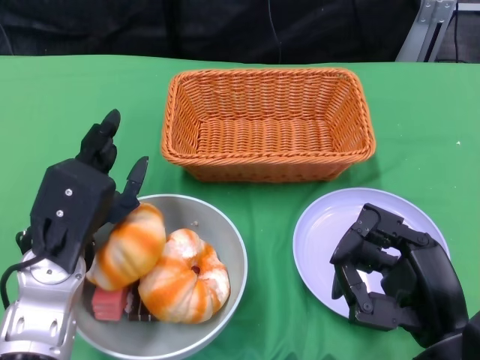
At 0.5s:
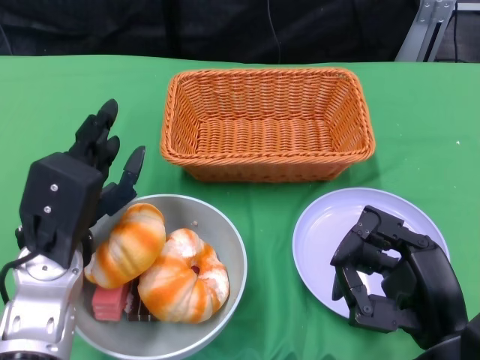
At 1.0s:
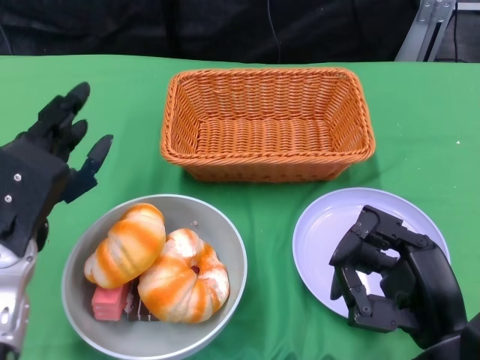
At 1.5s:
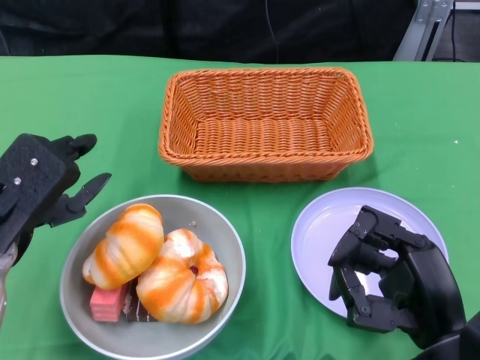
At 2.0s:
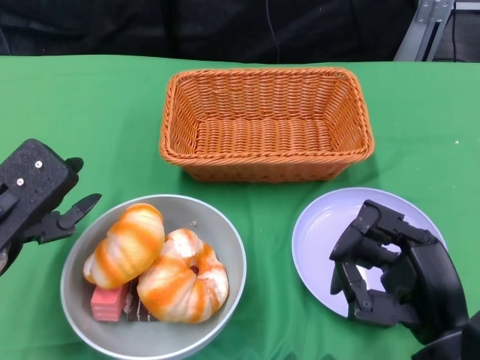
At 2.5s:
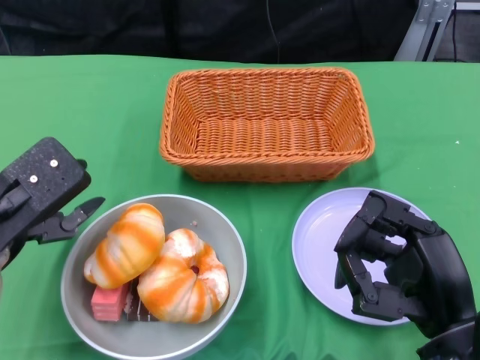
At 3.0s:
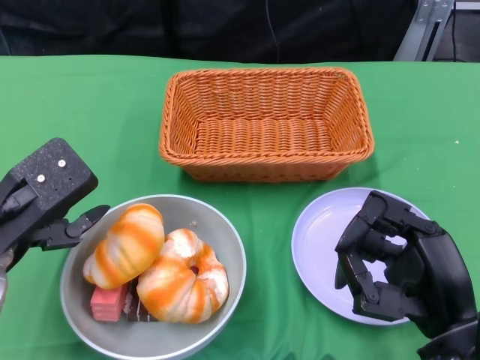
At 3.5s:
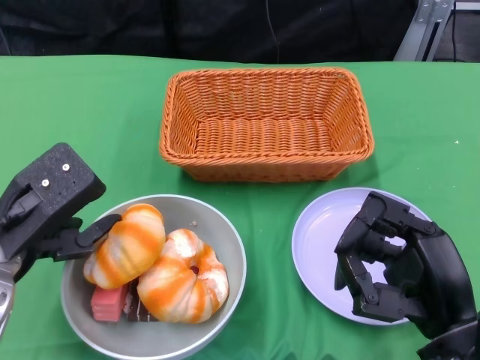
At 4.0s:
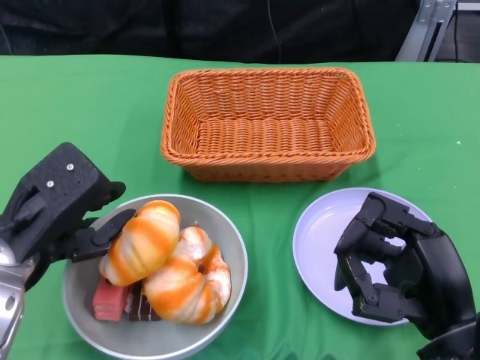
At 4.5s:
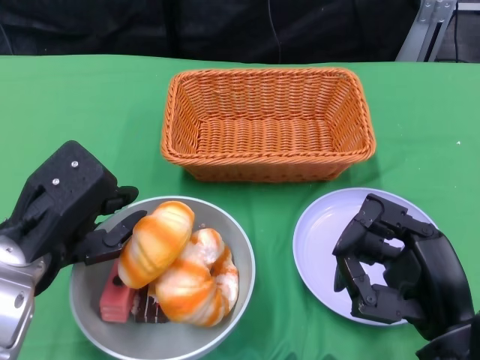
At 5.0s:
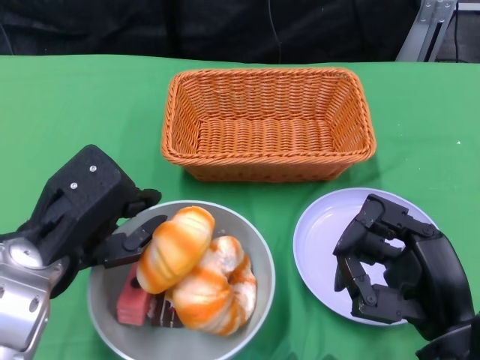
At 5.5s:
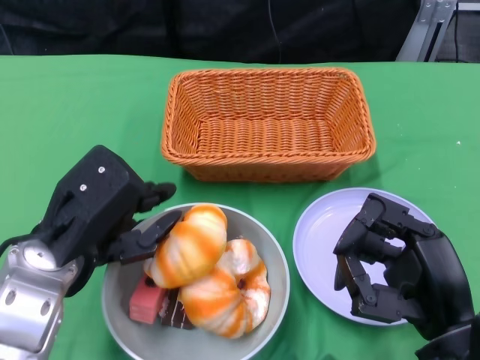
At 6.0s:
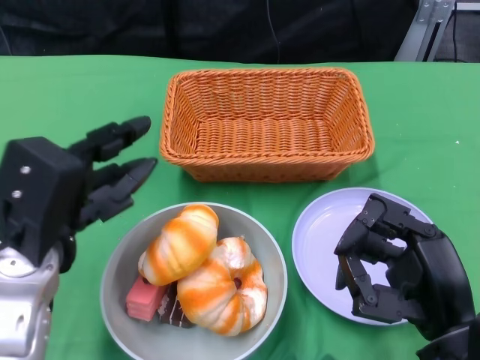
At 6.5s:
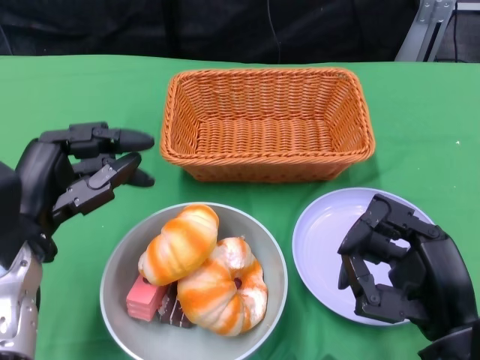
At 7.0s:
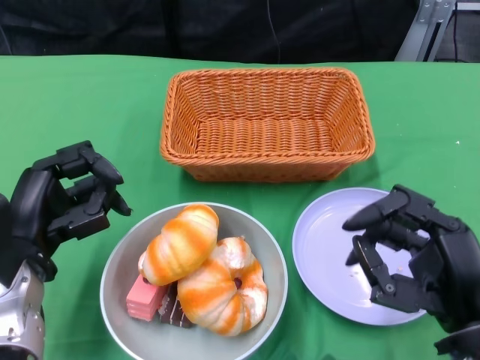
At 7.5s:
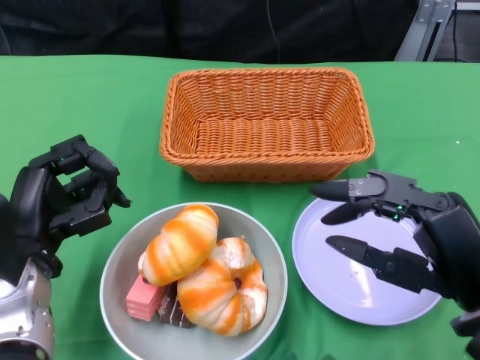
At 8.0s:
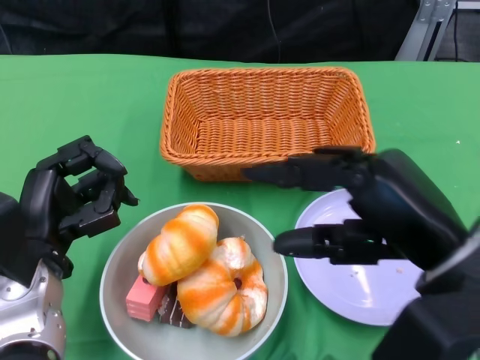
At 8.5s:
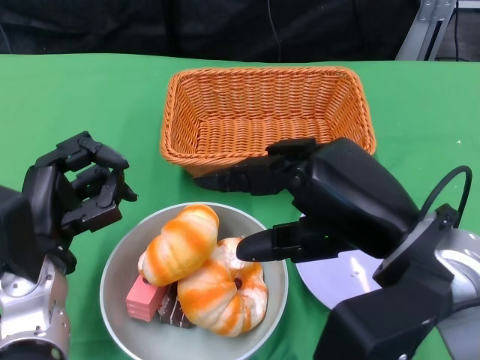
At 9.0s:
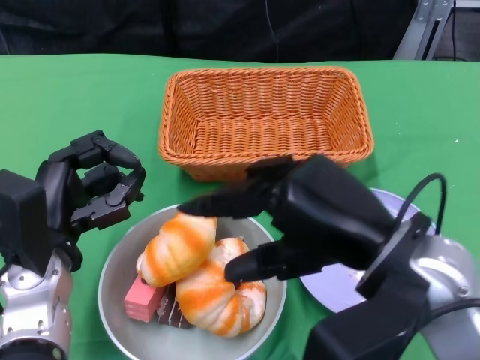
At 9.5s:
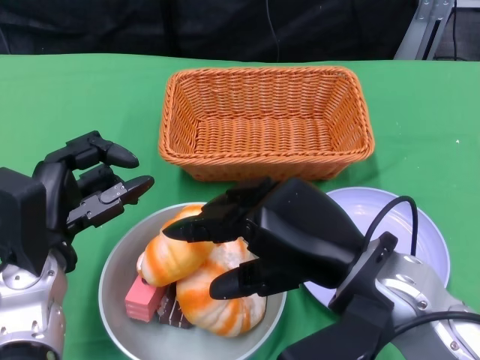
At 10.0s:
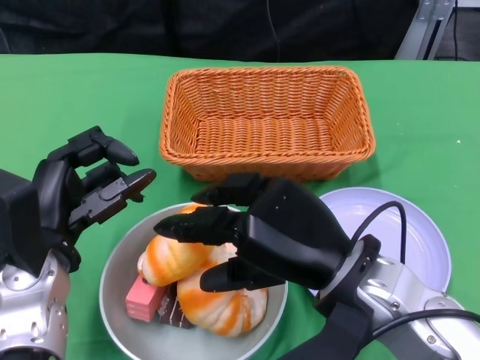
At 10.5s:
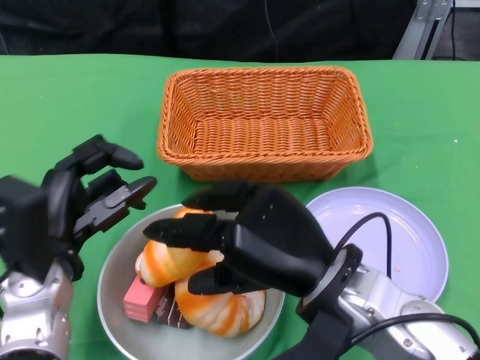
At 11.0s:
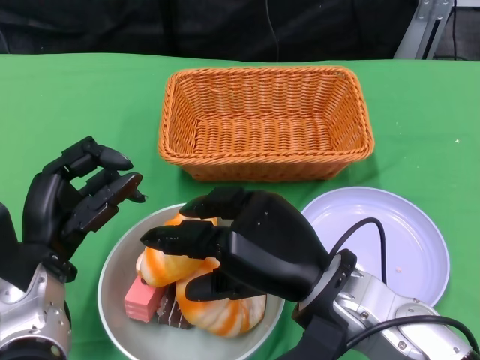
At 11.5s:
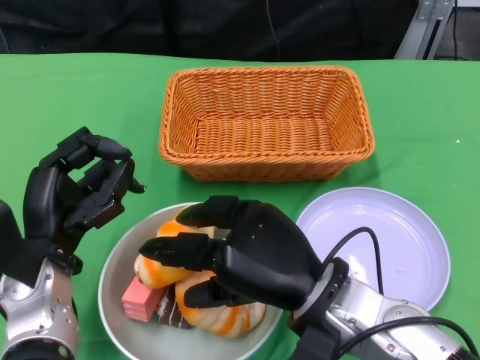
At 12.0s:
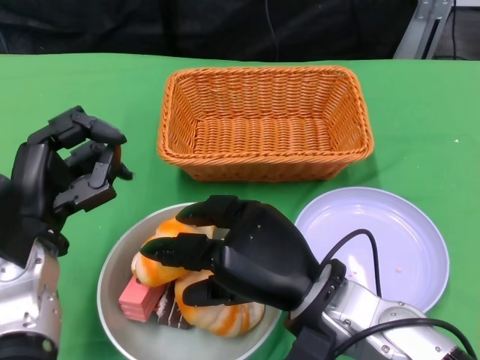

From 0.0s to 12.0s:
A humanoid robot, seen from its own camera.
Step, from 0.0s to 7.0s: Push the bowl to the center of the table using the left gripper.
From 0.0s to 2.0s: The left hand shifts roughly 5 cm to the left.
From 6.0s to 8.0s: The right hand is displaced upward by about 10 cm. The left hand moves downward, about 5 cm.
From 8.0s to 10.0s: The right hand is displaced to the left by some 10 cm.
From 10.0s to 12.0s: The right hand shifts by roughly 5 cm.

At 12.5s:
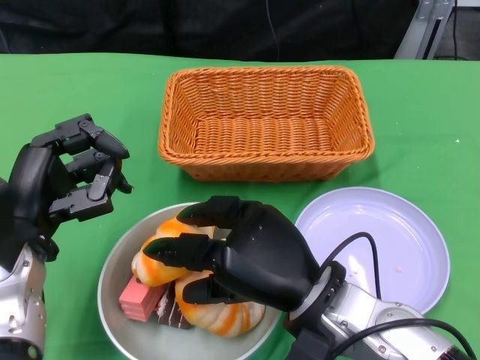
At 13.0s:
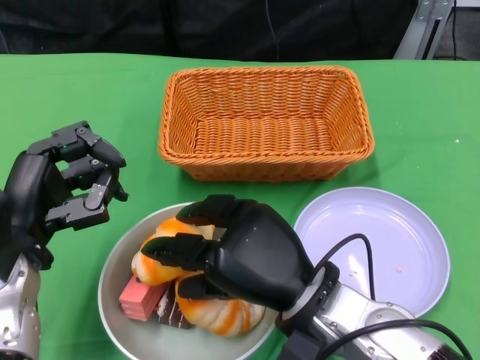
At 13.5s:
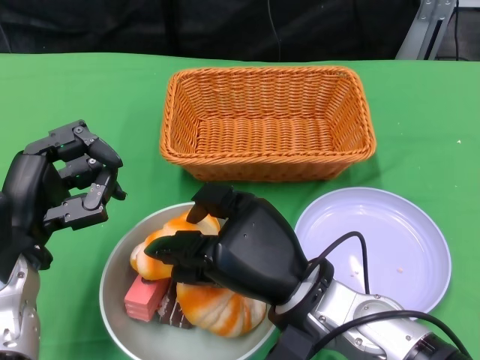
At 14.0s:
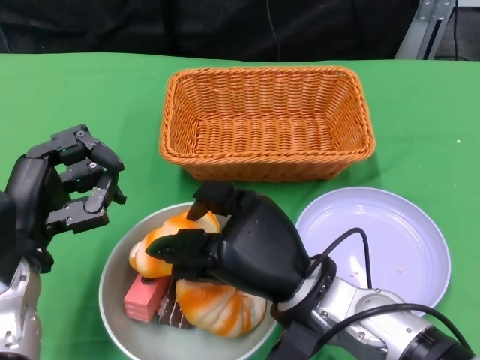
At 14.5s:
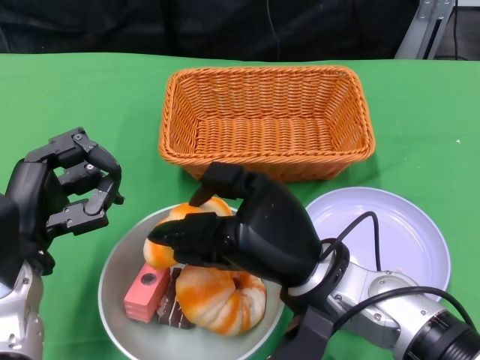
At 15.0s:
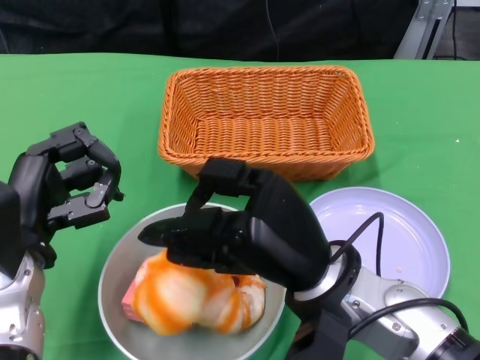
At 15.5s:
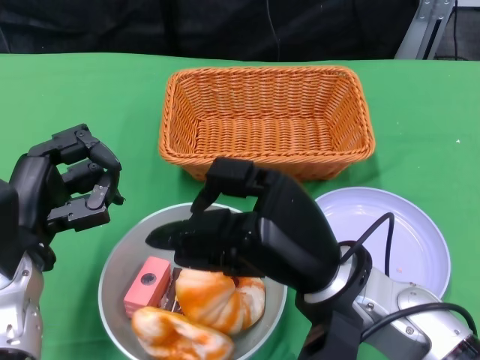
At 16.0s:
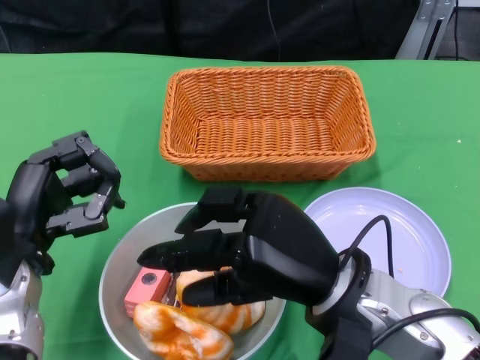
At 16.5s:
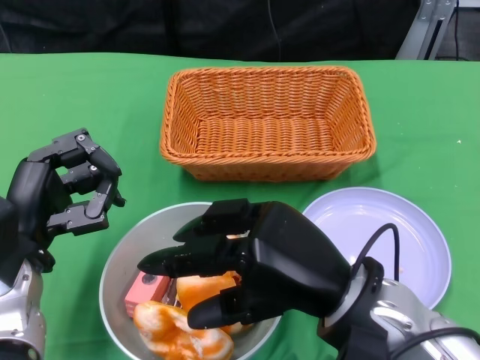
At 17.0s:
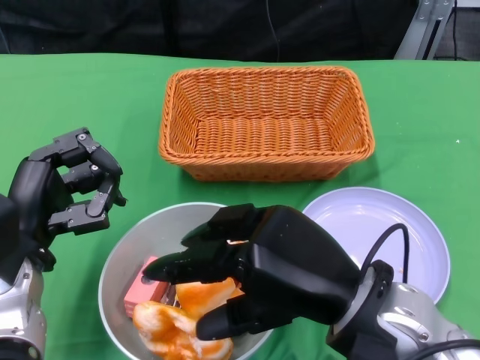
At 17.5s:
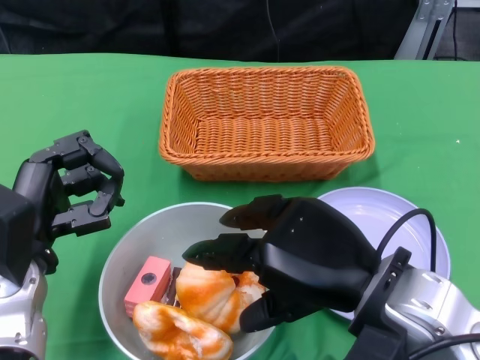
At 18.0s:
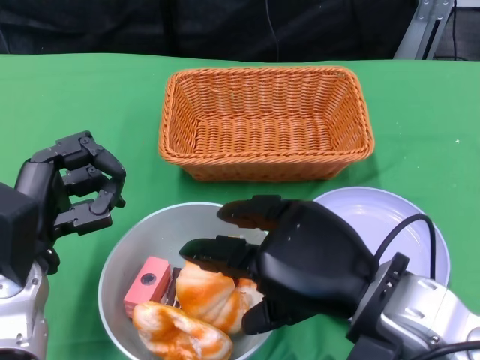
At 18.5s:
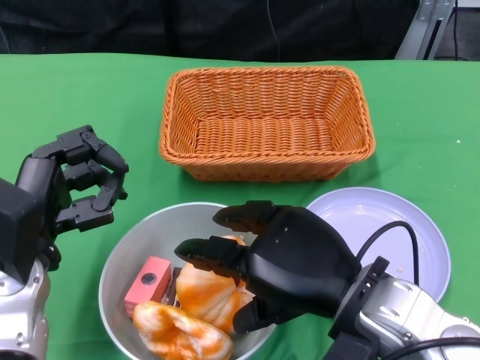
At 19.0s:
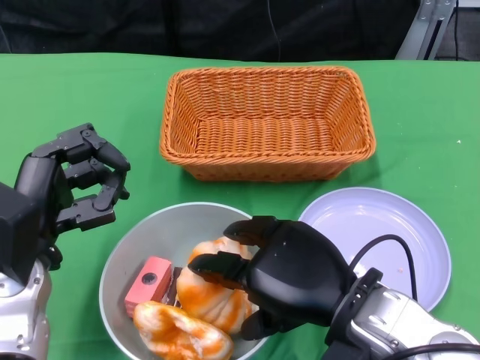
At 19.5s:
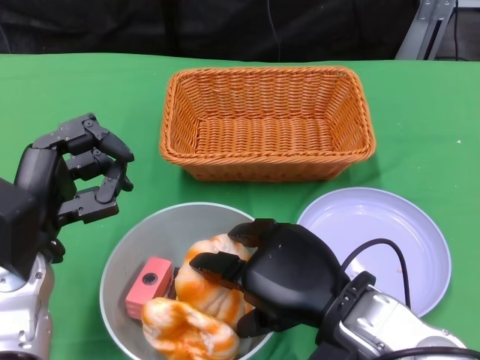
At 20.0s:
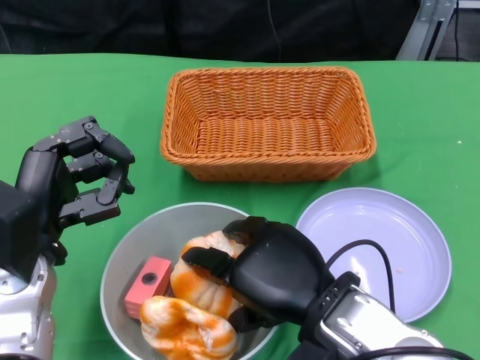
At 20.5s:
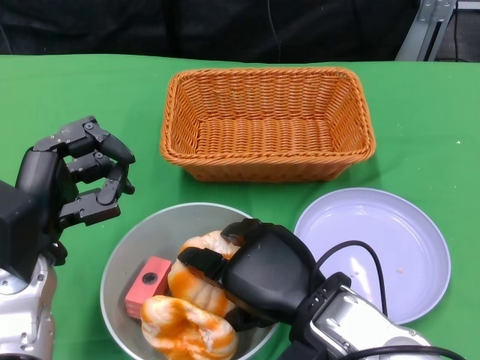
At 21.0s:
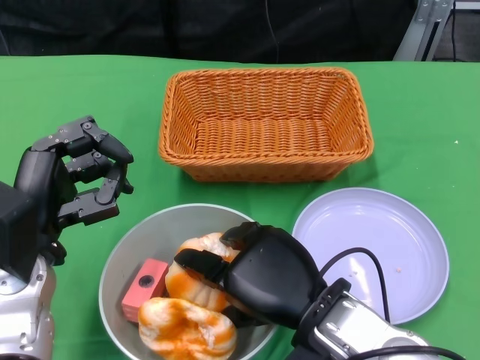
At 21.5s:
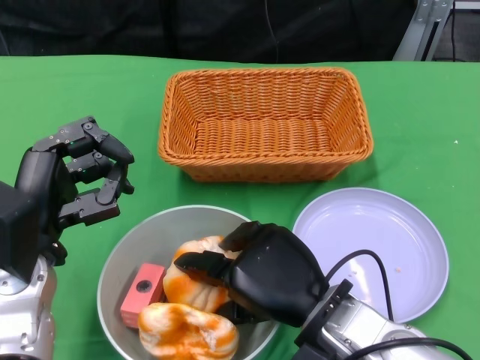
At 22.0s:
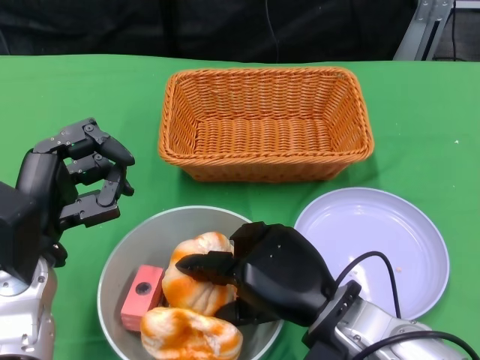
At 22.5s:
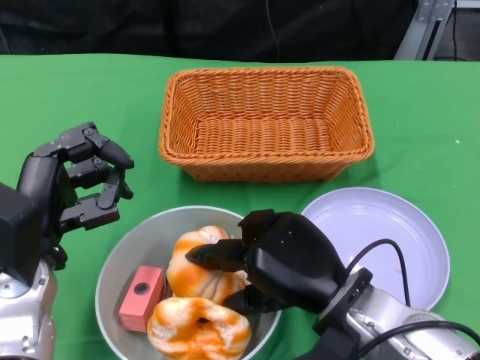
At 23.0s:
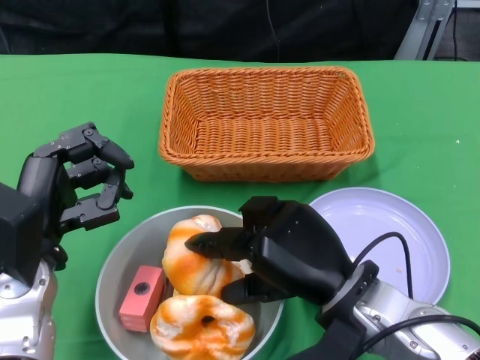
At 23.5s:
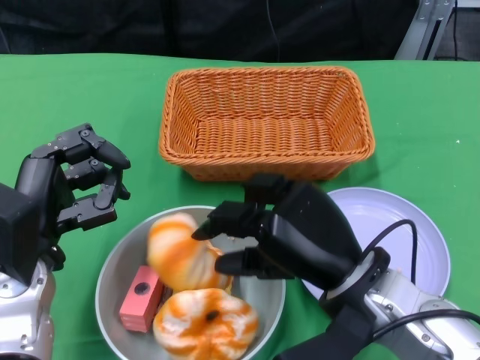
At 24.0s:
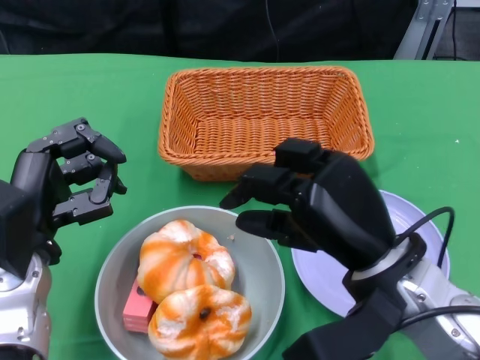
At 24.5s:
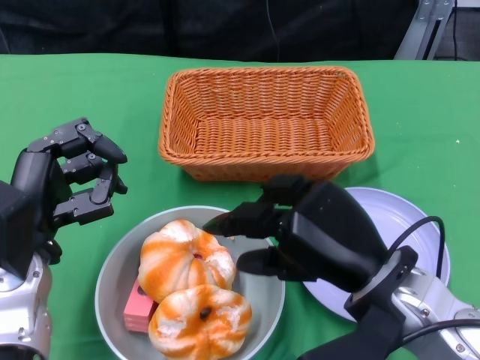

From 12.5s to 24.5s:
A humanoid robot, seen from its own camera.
From 14.5s to 16.5s: The right hand shifts by some 5 cm.
From 18.5s to 20.5s: The right hand changes place by some 5 cm.
From 22.5s to 24.5s: The right hand ends up some 5 cm from where it was.

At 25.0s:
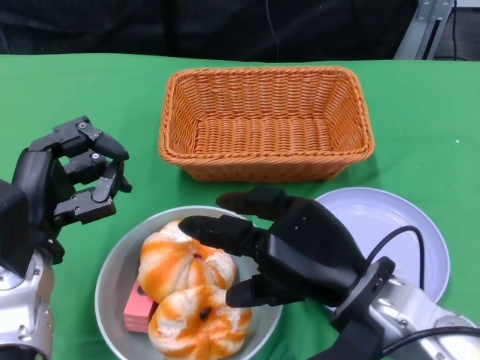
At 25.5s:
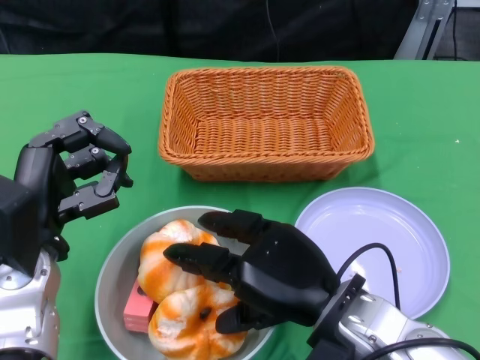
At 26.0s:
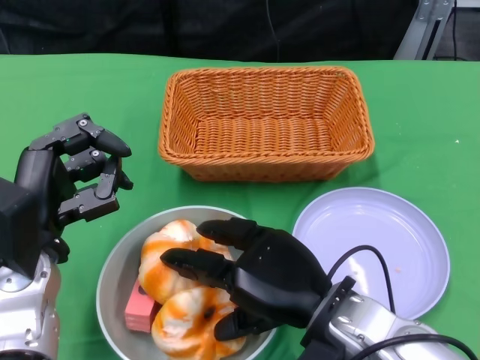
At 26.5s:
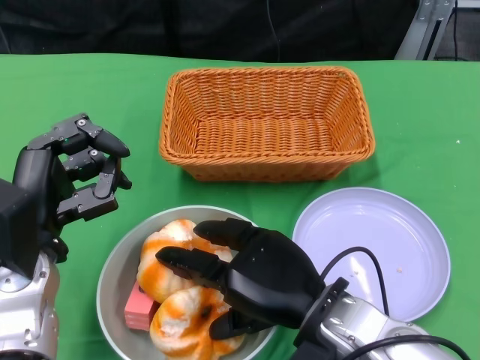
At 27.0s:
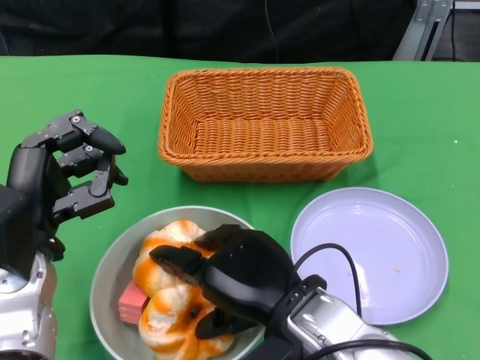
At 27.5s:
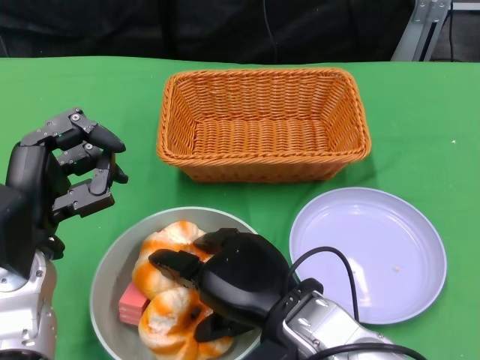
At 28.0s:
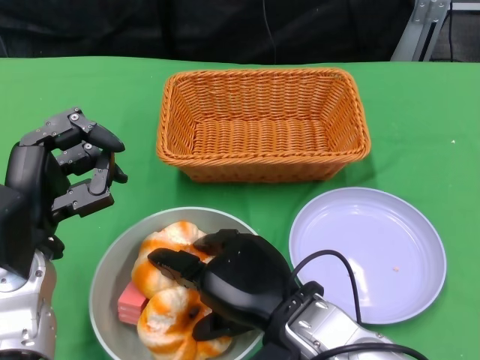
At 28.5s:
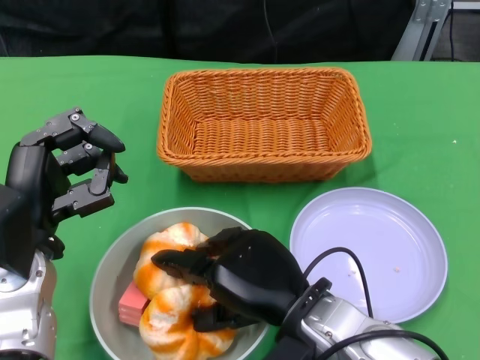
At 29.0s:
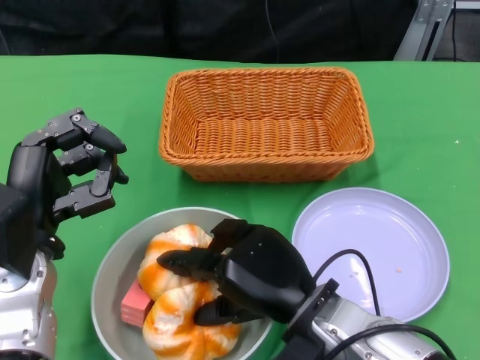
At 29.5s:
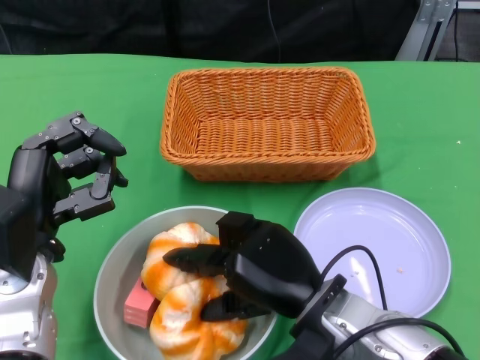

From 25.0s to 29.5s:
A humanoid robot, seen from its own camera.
From 25.0s to 27.0s: The right hand is displaced to the left by approximately 5 cm.
